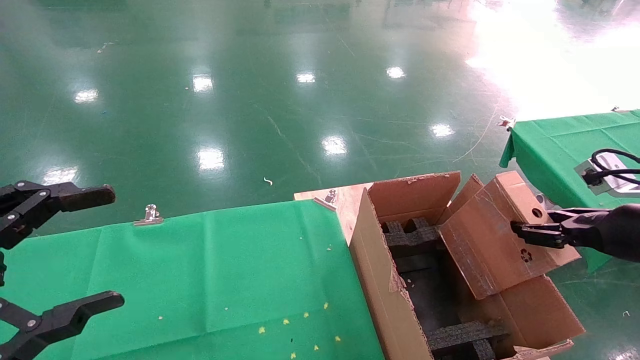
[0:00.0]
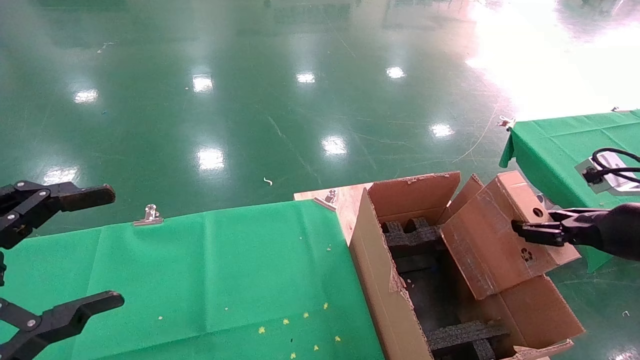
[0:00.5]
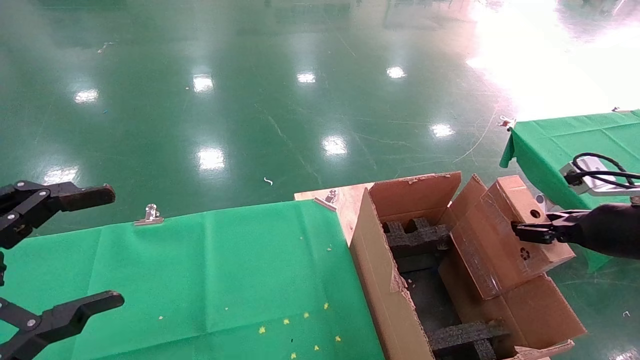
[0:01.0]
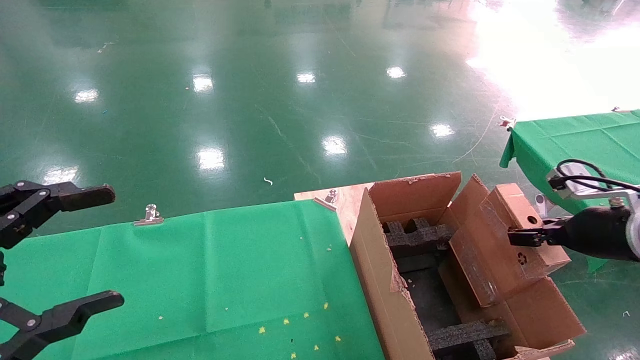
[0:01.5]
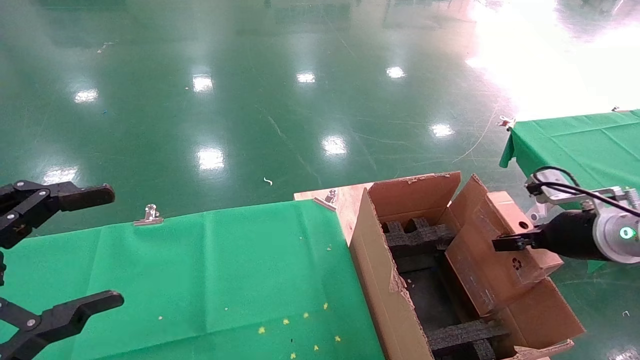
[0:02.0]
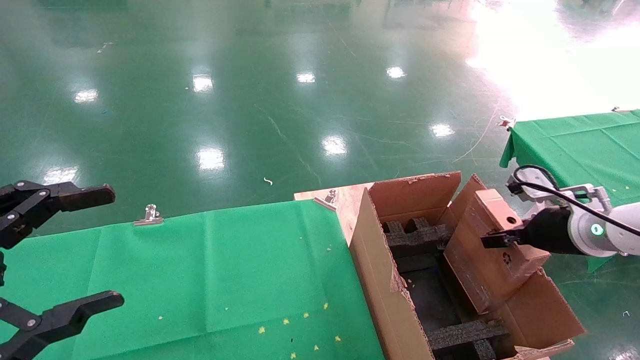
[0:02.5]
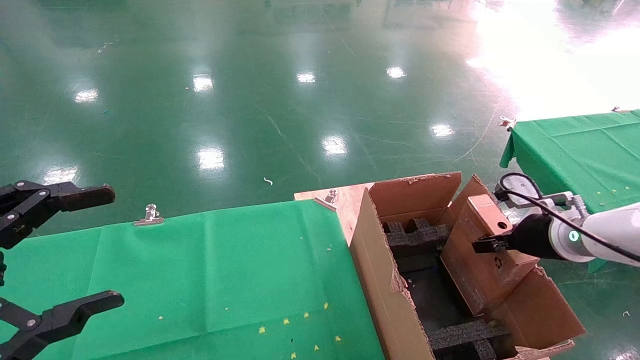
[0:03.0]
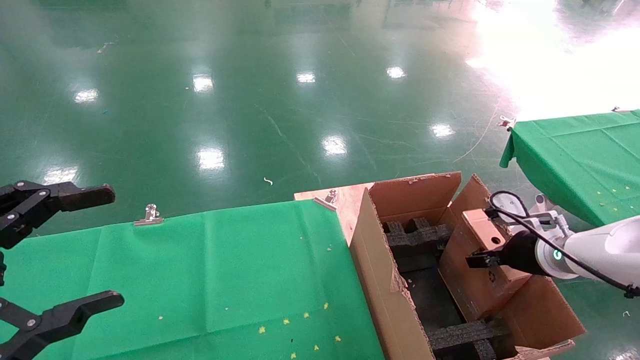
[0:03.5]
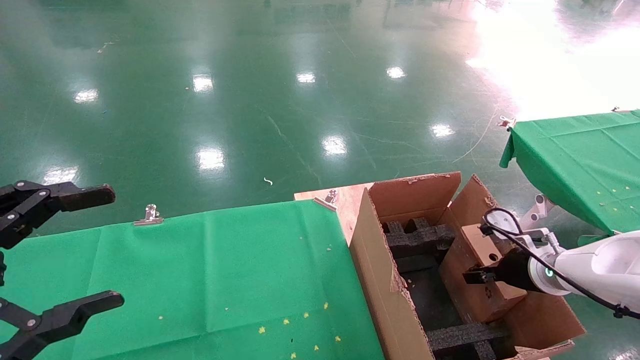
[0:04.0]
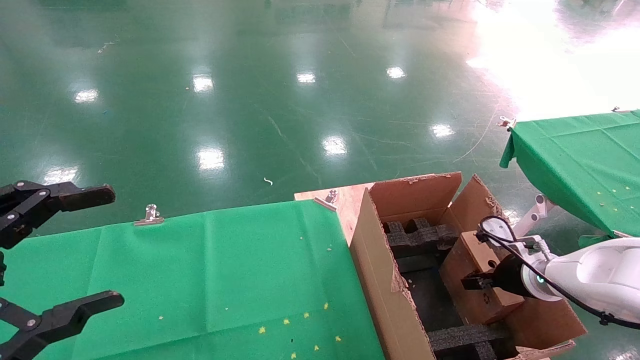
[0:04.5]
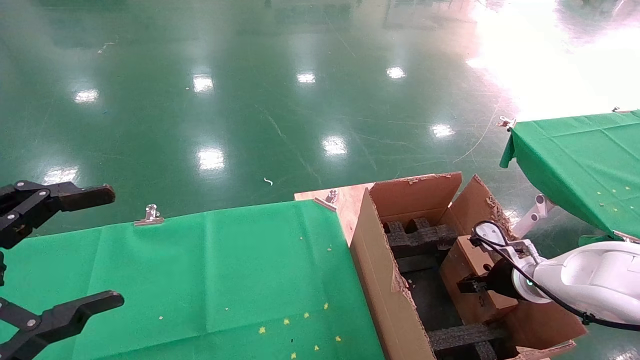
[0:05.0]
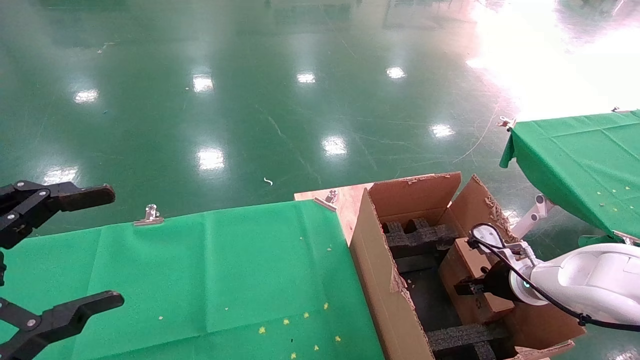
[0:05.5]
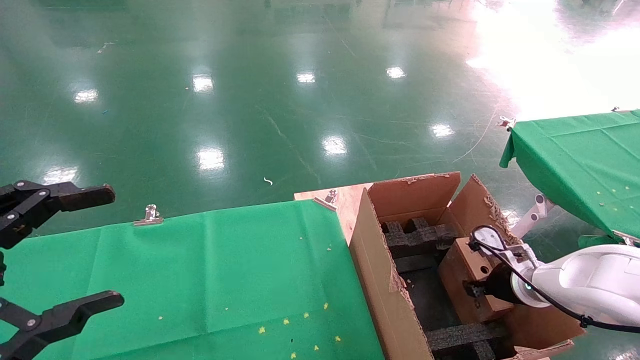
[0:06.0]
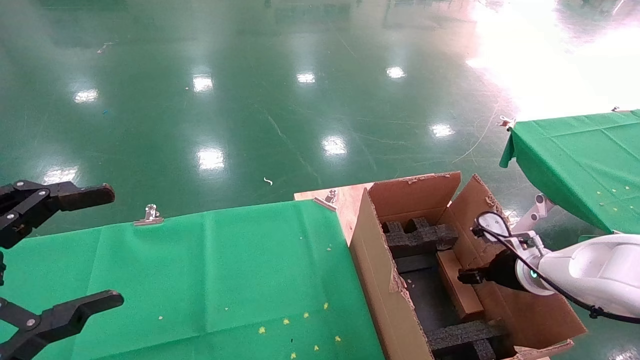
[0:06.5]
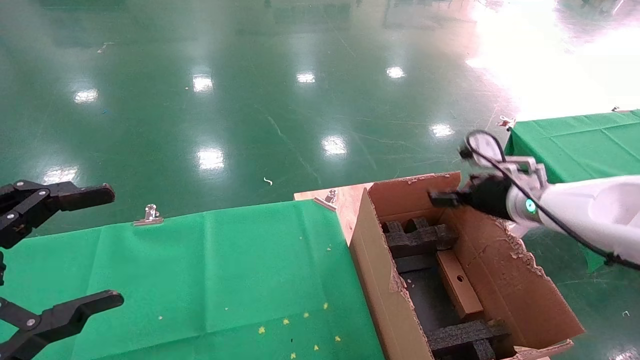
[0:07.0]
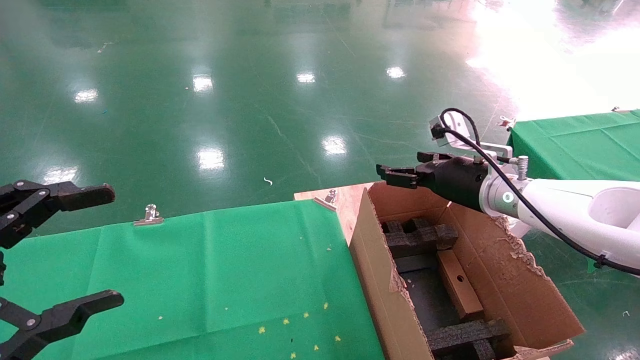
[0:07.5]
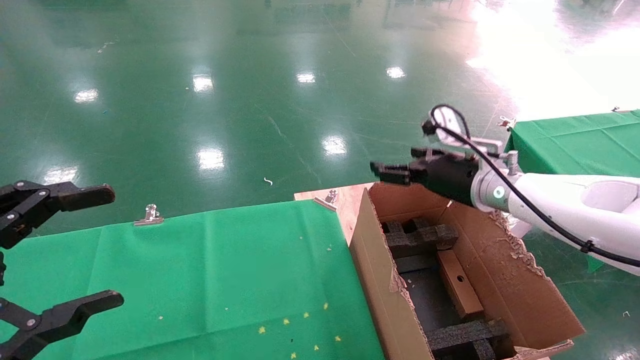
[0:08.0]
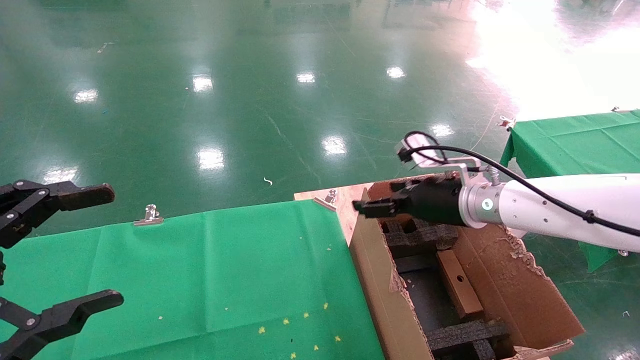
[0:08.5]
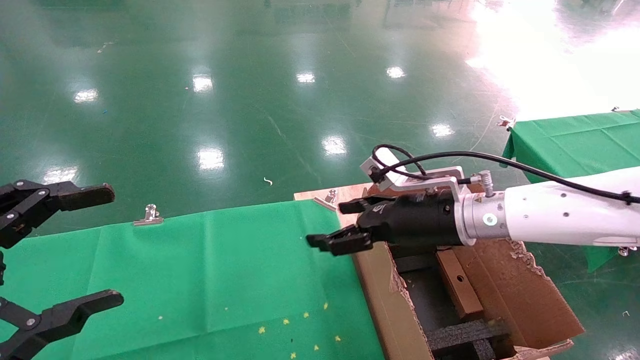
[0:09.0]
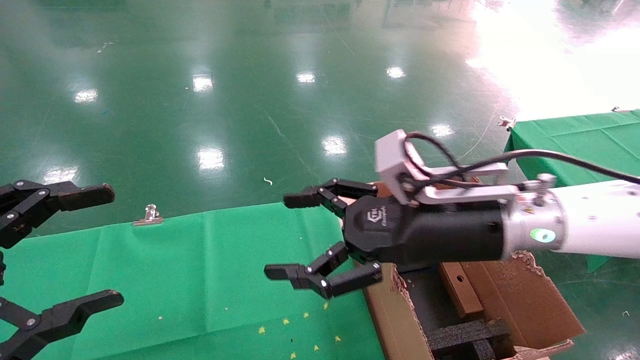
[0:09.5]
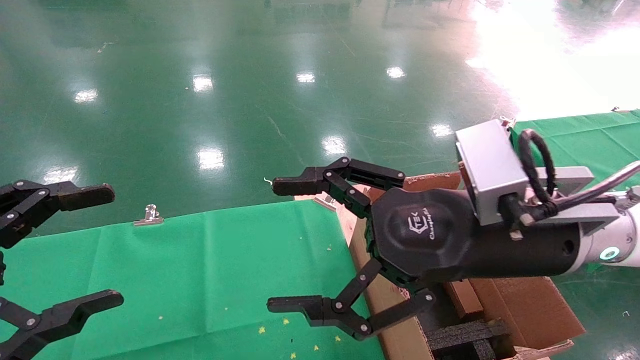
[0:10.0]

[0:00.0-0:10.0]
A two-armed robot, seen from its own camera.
Task of the whole recording: using a robotic arm to pick up a cardboard box and palace it the carton.
Step, 0:00.0 to 0:06.5: Place the mouse and the power cord paper box into the container.
0:00.0 to 0:02.0: The right gripper shifts roughly 10 cm forward.
0:02.0 to 0:04.0: The right gripper goes some 10 cm downward.
0:04.0 to 0:06.0: There are only small adjustments of the grippers.
0:06.0 to 0:08.0: The right gripper shifts about 20 cm upward and to the left, and opens up.
0:08.0 to 0:10.0: The right gripper moves backward and to the left, approximately 20 cm.
